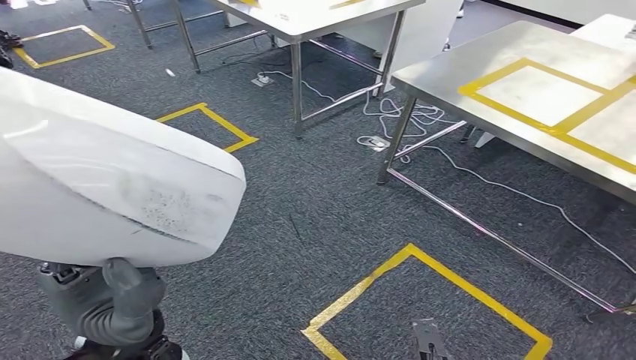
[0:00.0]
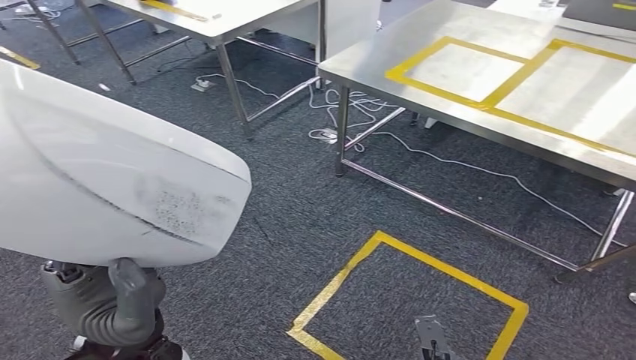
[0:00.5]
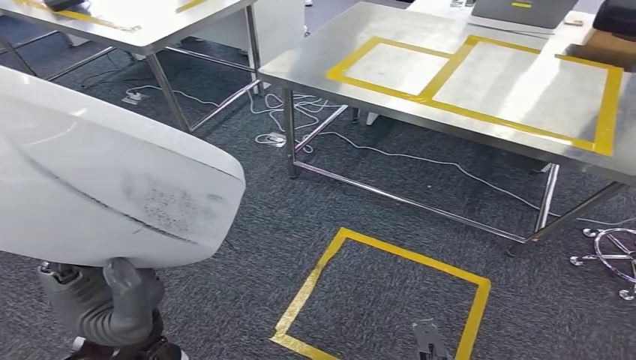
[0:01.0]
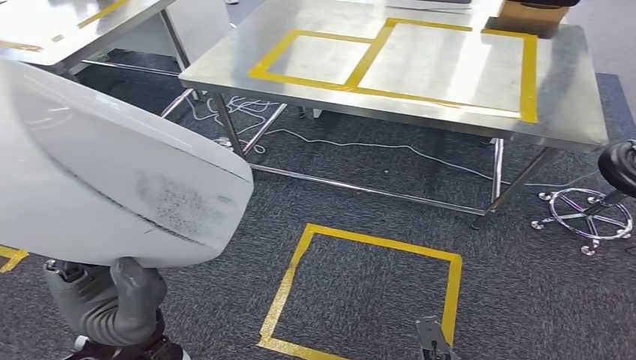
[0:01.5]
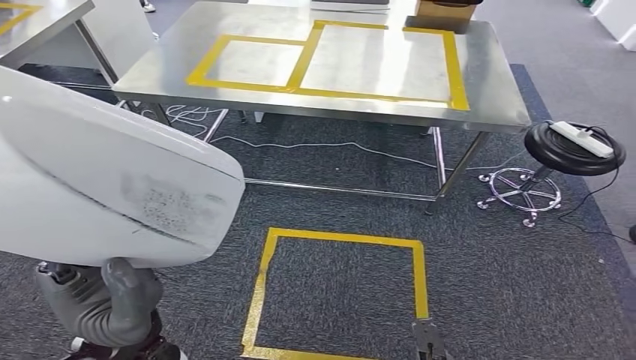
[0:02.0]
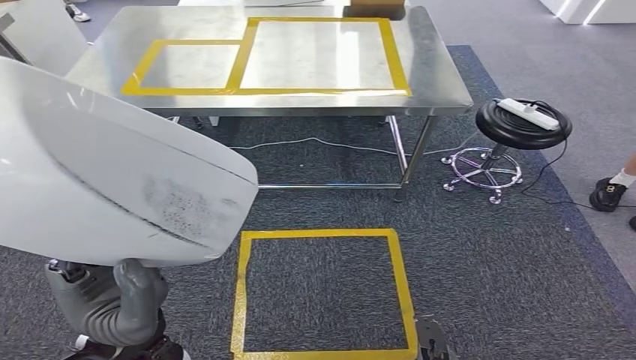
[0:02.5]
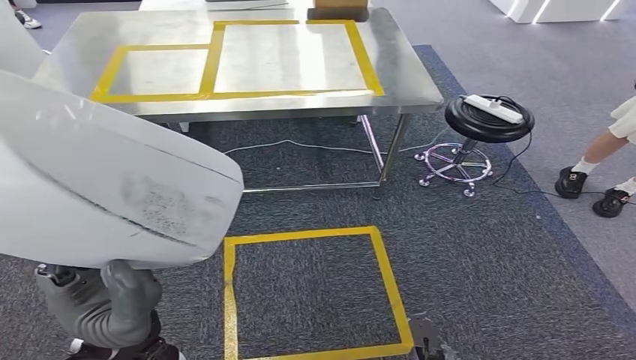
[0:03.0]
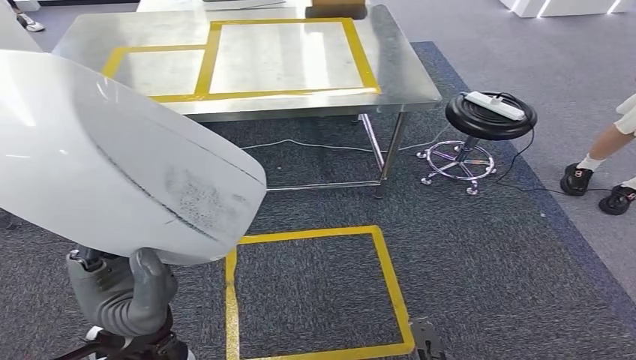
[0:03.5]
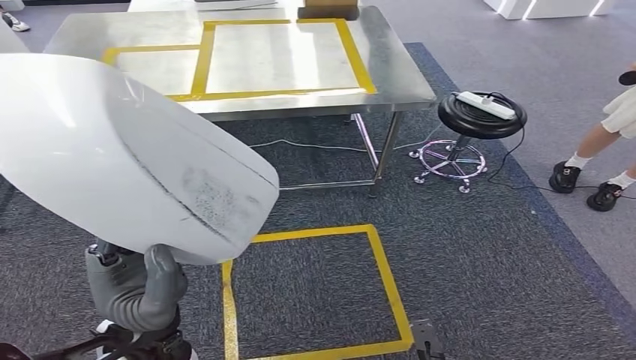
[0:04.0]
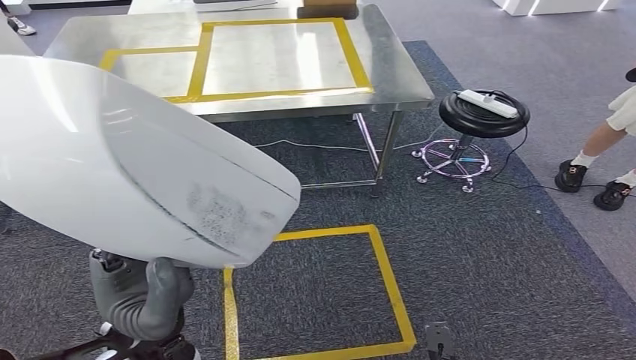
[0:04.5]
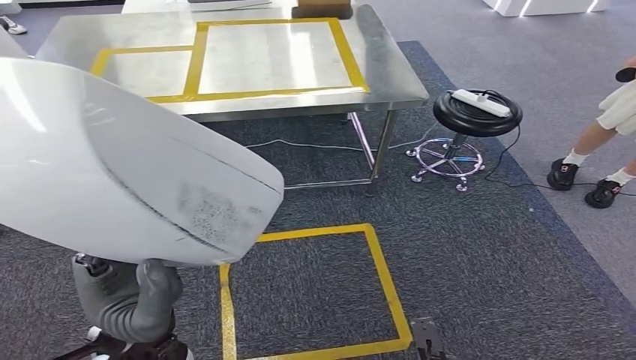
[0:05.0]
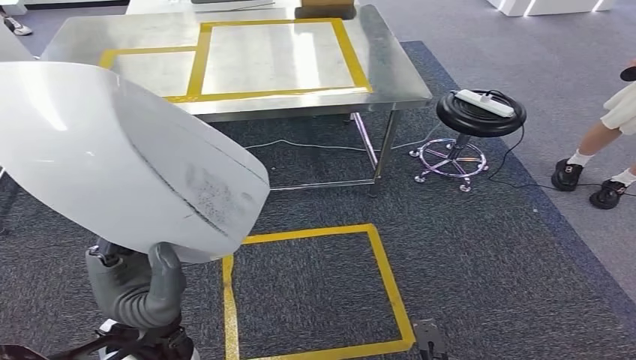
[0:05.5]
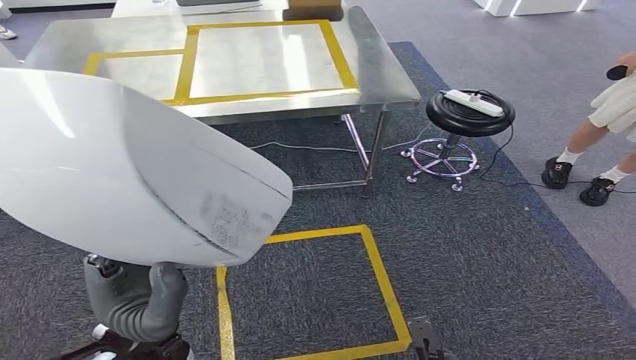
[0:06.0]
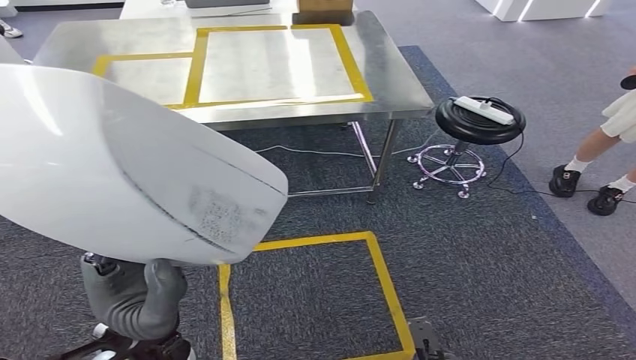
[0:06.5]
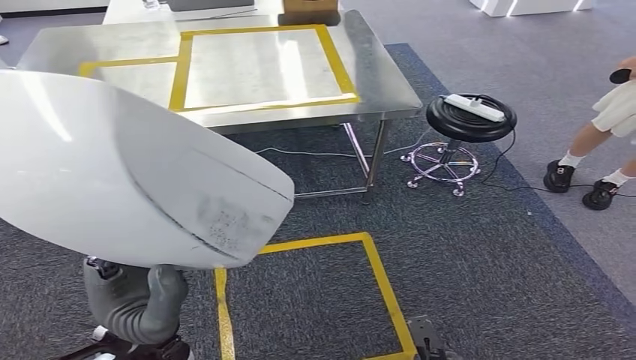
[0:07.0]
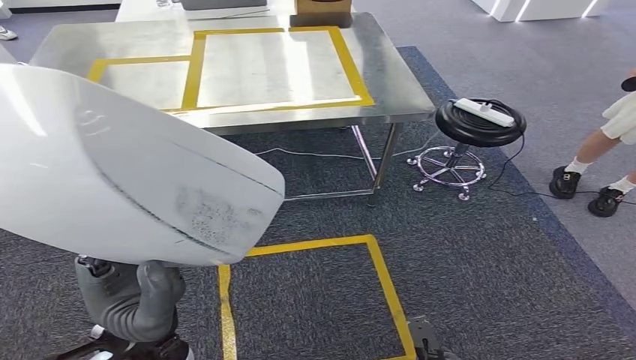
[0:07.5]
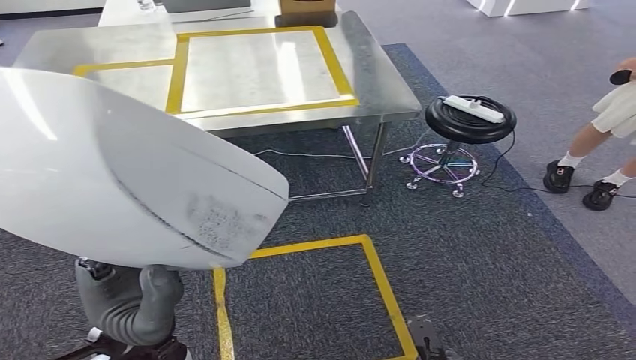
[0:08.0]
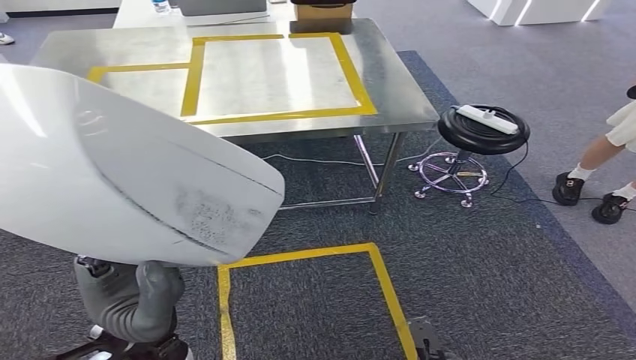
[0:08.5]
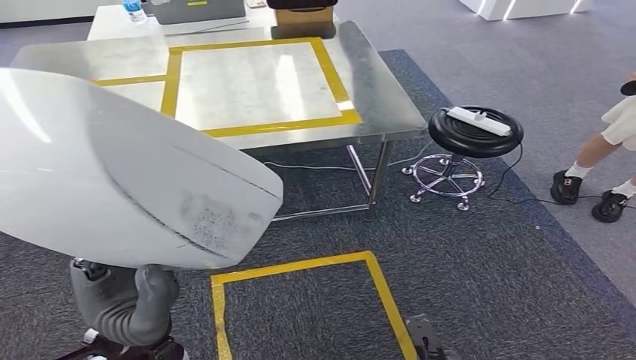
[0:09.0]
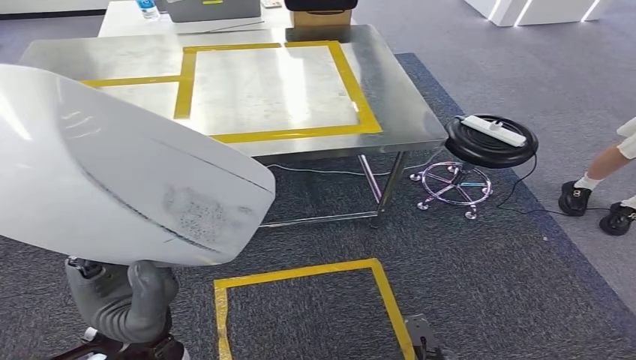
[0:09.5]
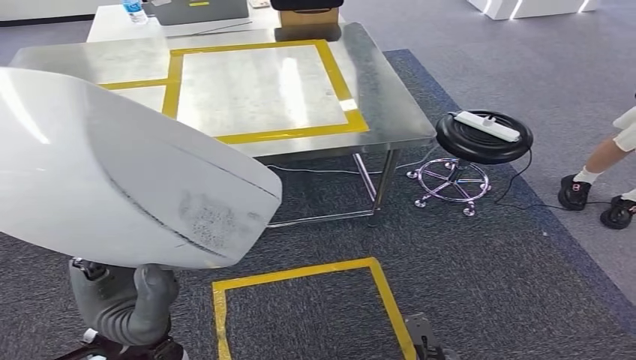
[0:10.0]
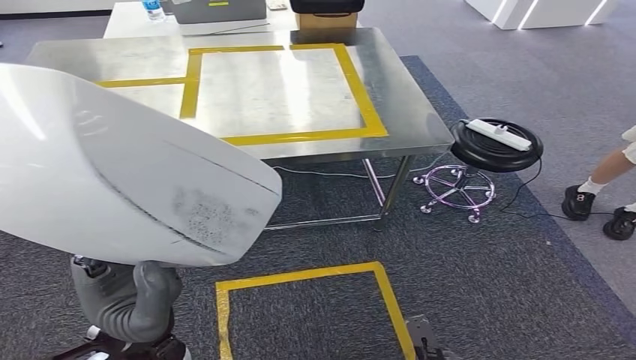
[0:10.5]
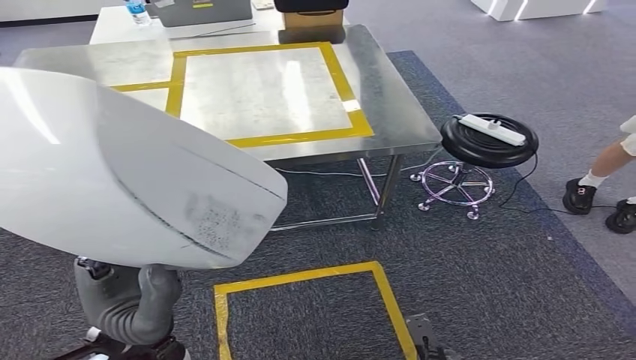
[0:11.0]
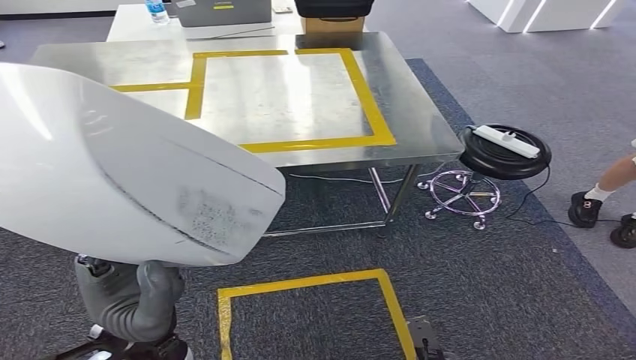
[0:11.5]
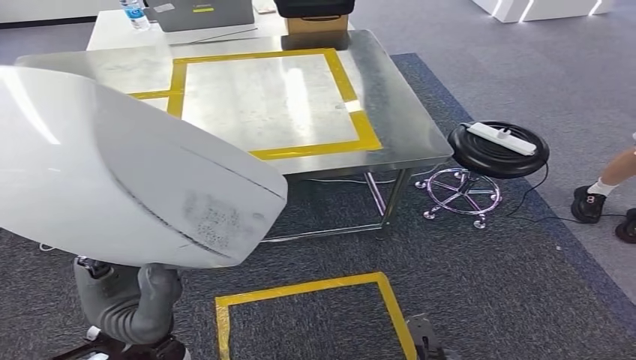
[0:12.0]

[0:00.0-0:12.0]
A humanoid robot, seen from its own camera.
0:06.0 to 0:08.0: Both hands stay put.
0:10.0 to 0:12.0: Both hands stay about where they are.

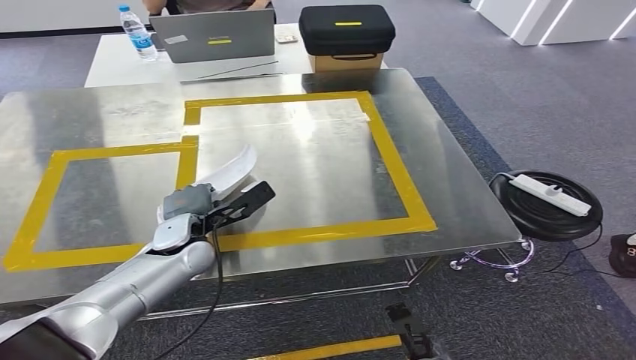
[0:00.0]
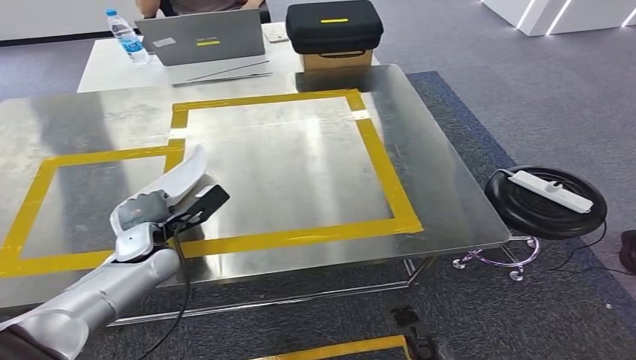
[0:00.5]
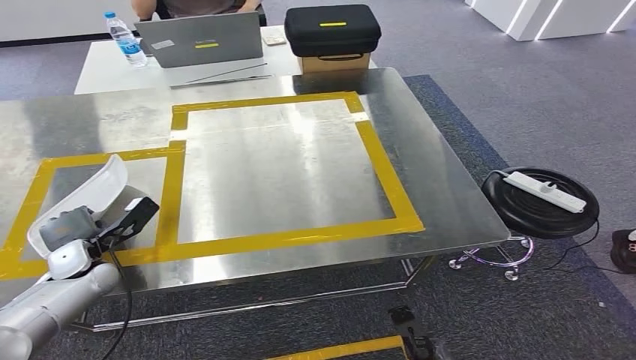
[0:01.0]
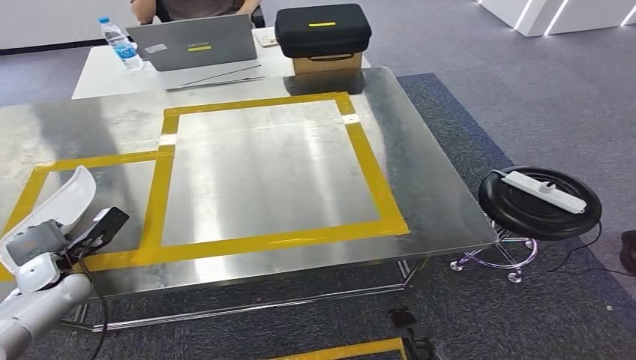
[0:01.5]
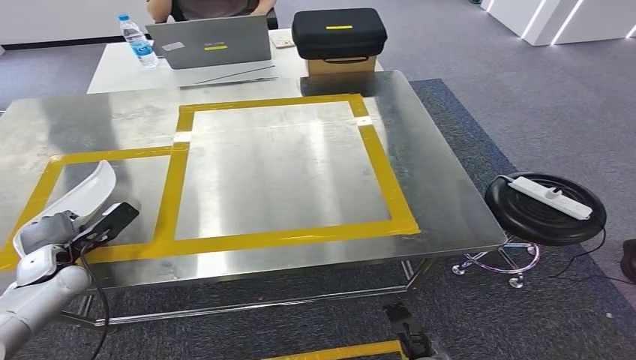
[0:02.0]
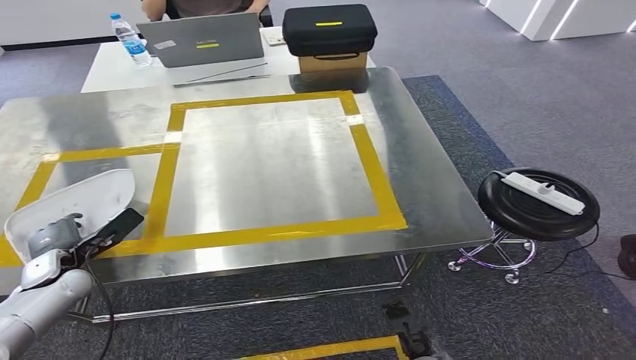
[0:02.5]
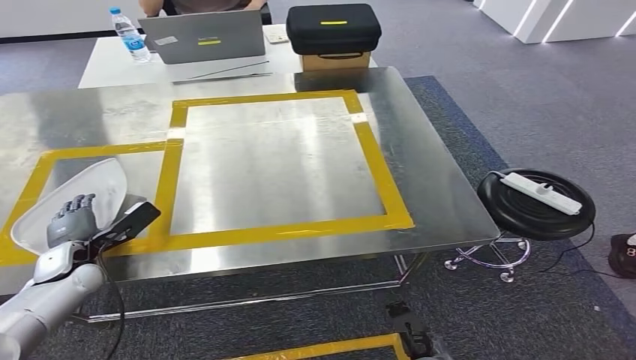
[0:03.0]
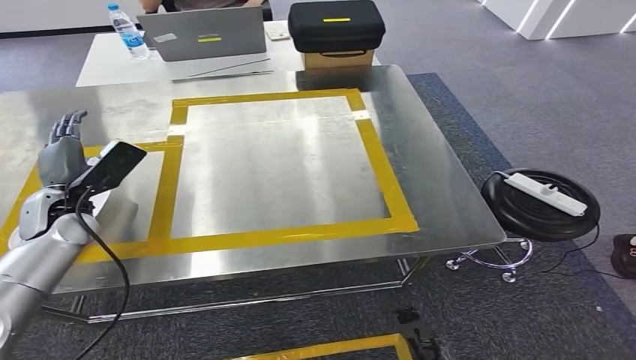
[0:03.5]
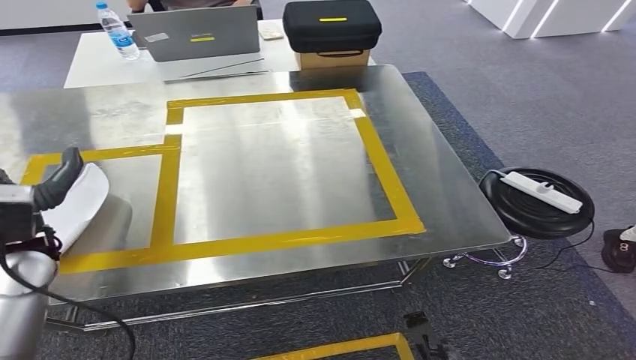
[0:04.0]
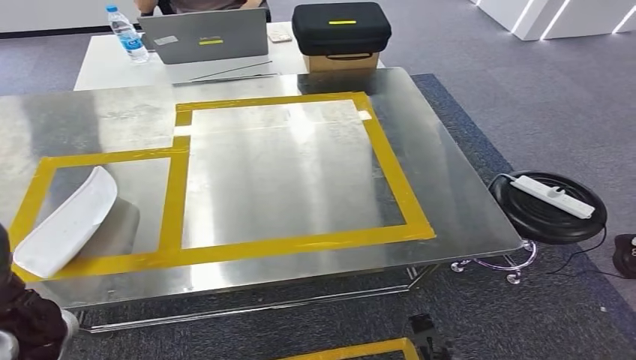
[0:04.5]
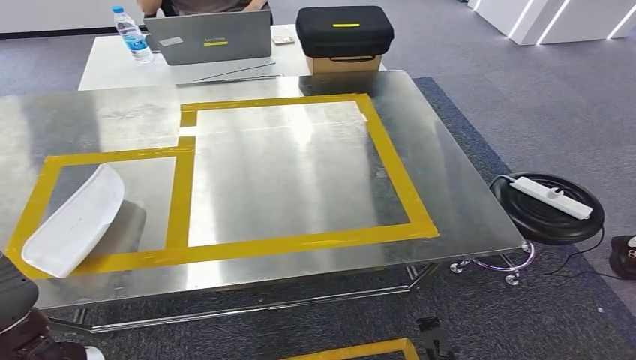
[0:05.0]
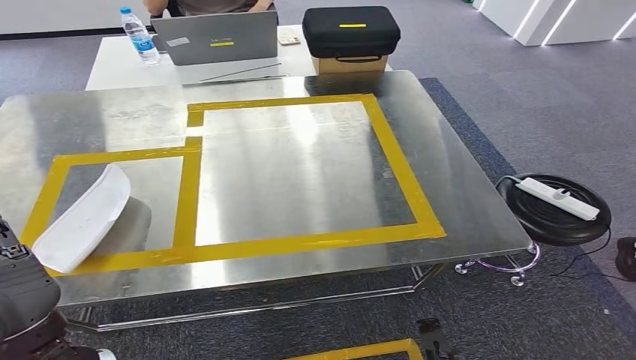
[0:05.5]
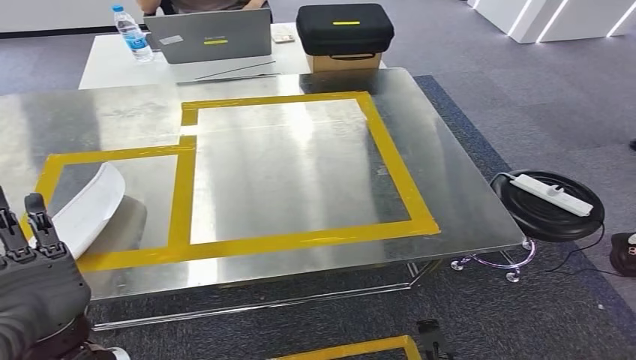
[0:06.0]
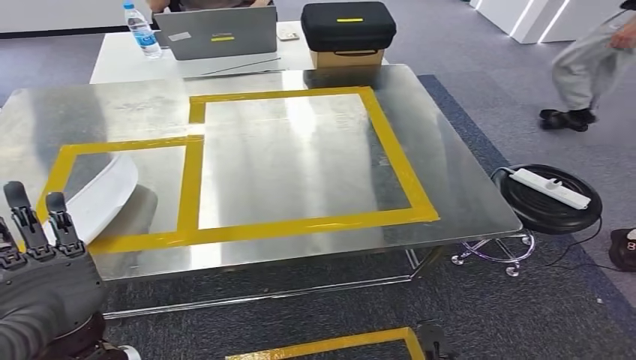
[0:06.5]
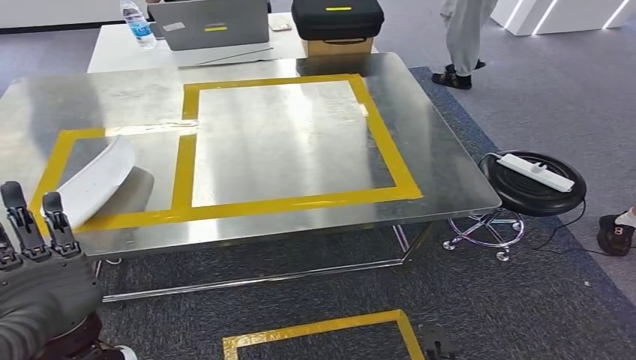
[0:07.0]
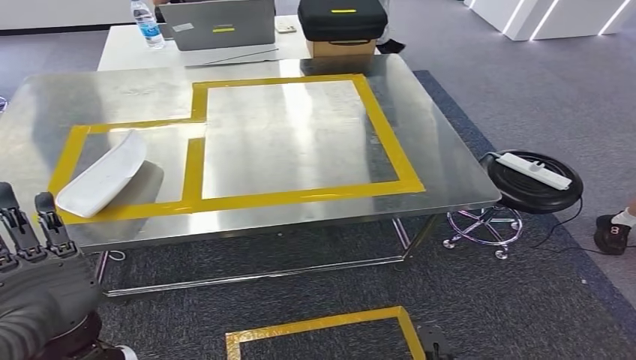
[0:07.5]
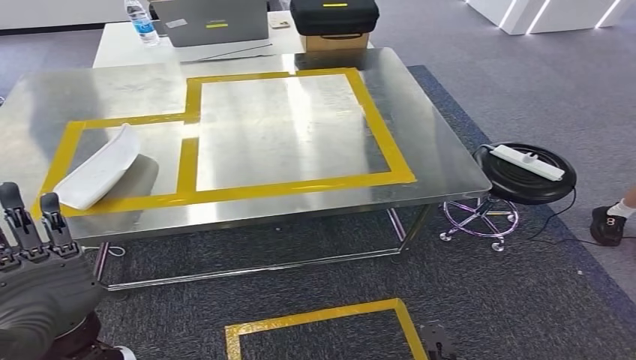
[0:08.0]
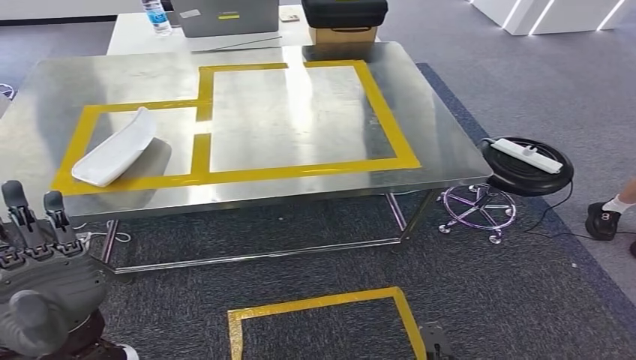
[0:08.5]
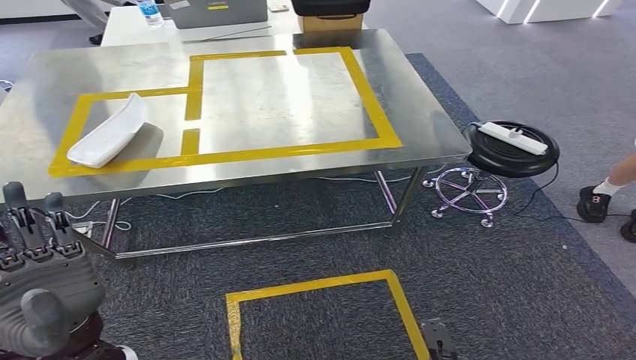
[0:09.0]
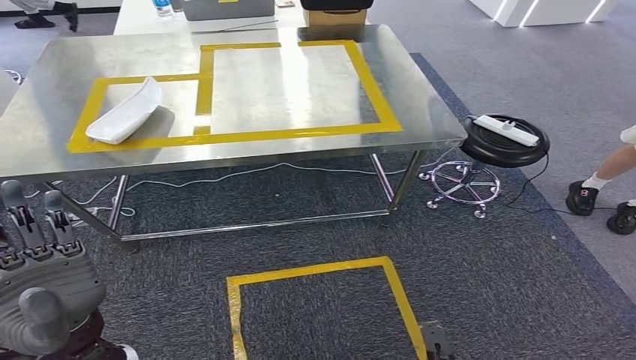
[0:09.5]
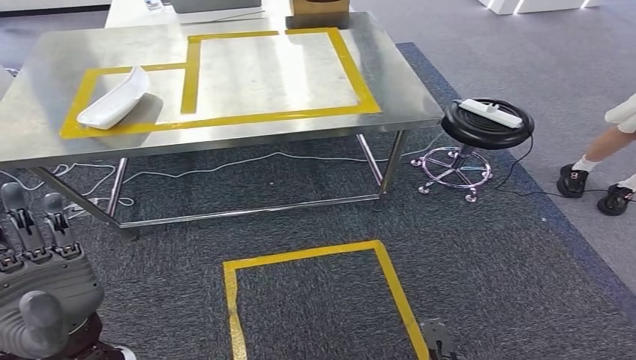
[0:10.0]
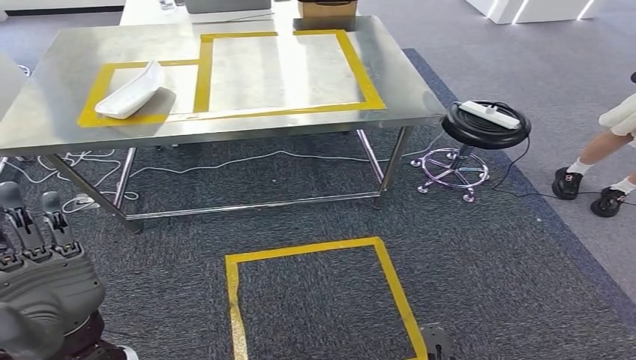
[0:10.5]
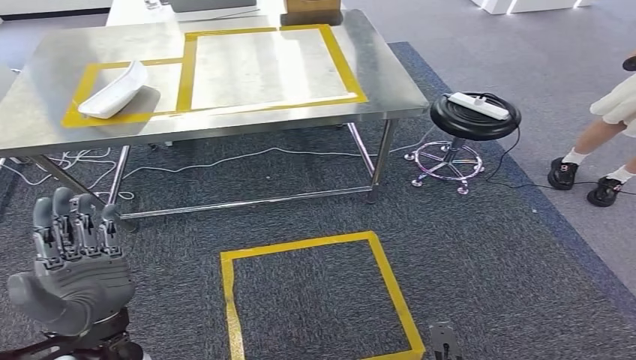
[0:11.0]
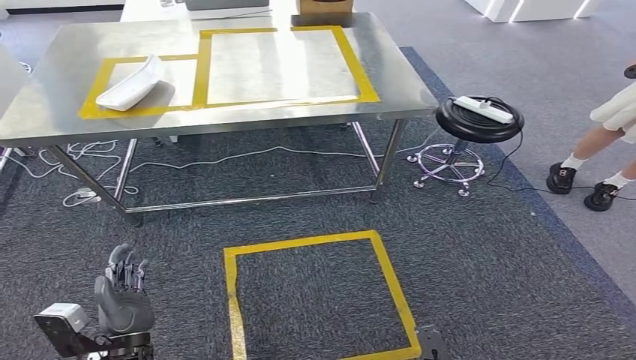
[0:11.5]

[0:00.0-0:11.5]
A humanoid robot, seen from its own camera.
Step, 0:00.0 to 0:05.0: Insert the small parts into the corresponding holes on the workbench.
